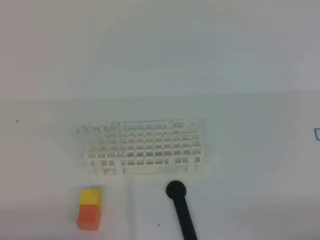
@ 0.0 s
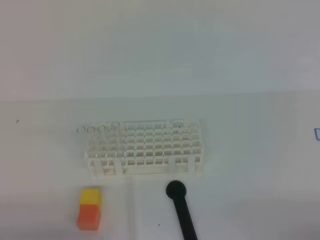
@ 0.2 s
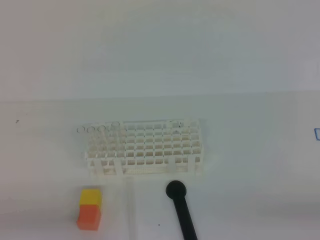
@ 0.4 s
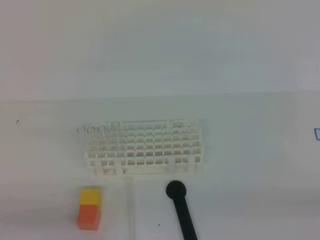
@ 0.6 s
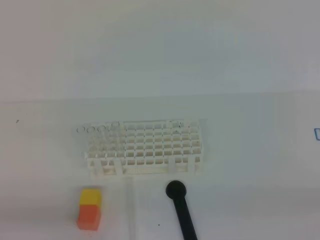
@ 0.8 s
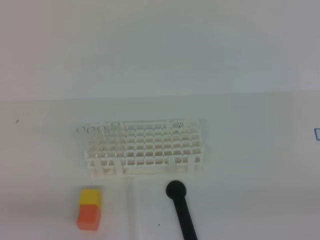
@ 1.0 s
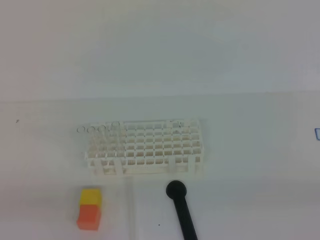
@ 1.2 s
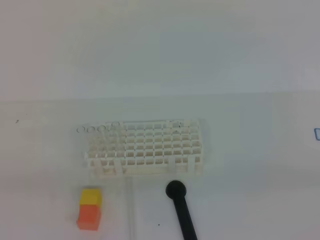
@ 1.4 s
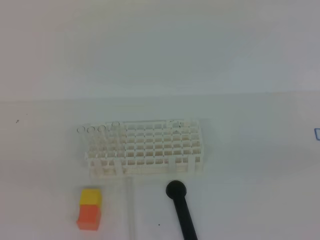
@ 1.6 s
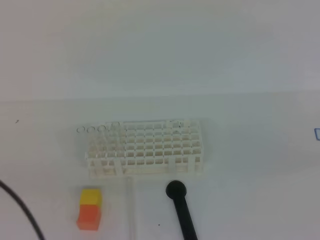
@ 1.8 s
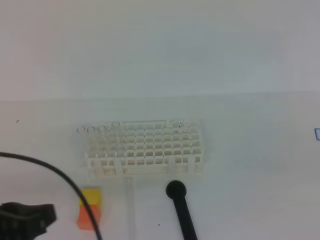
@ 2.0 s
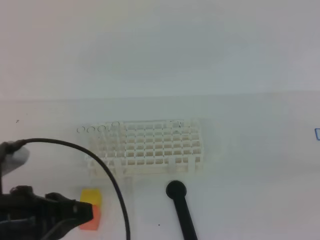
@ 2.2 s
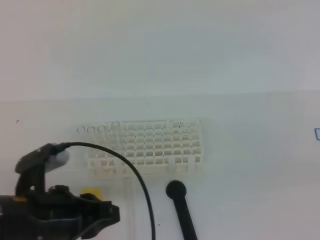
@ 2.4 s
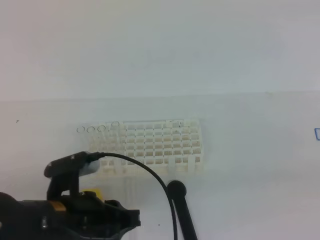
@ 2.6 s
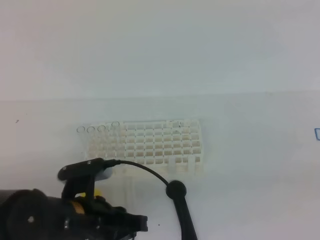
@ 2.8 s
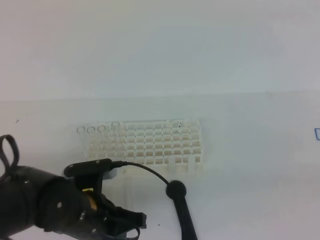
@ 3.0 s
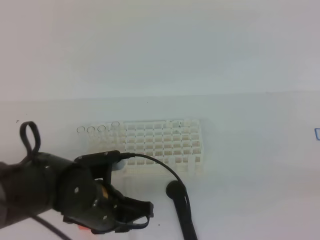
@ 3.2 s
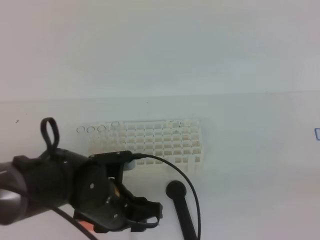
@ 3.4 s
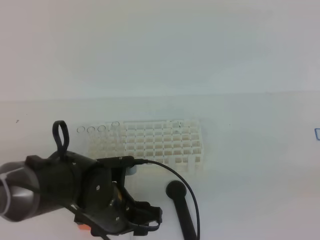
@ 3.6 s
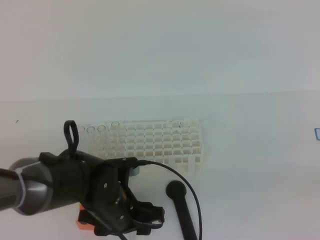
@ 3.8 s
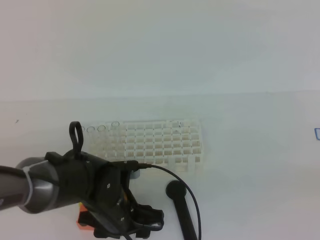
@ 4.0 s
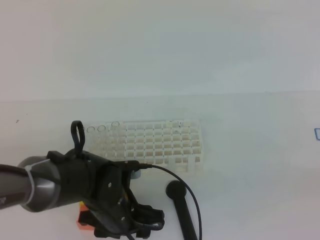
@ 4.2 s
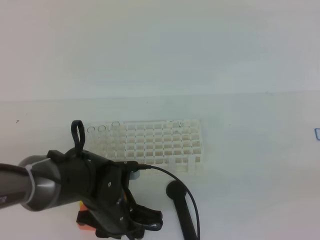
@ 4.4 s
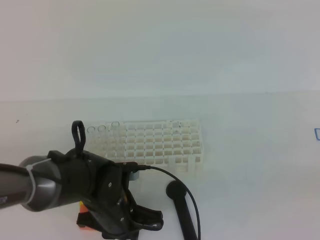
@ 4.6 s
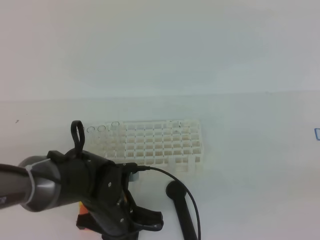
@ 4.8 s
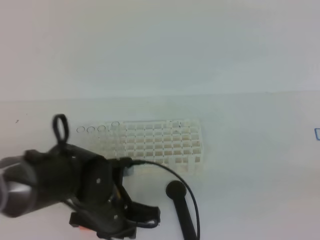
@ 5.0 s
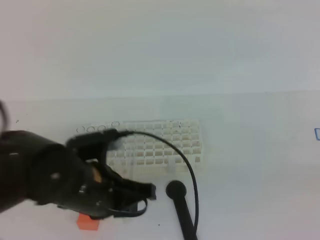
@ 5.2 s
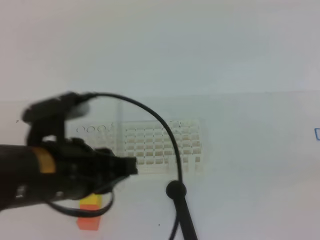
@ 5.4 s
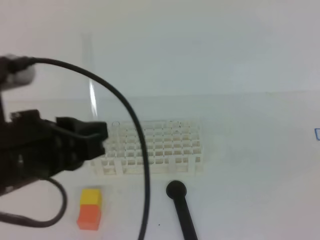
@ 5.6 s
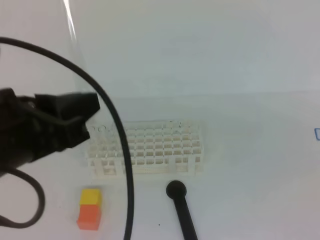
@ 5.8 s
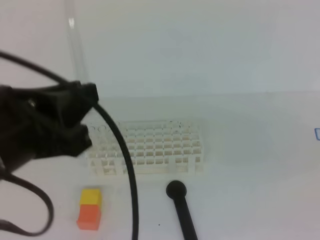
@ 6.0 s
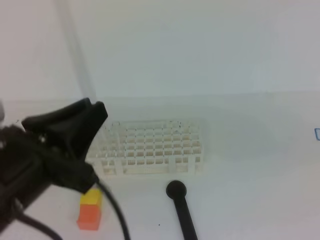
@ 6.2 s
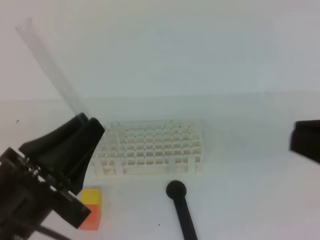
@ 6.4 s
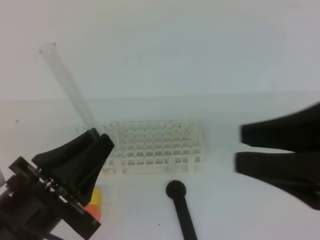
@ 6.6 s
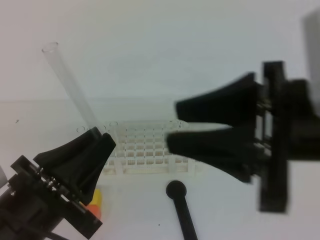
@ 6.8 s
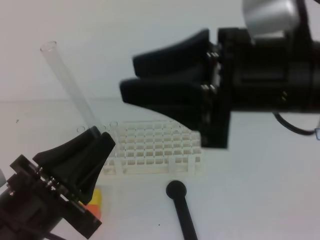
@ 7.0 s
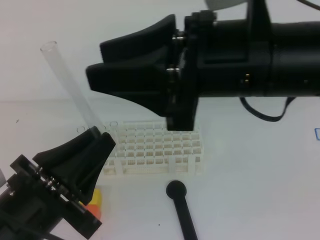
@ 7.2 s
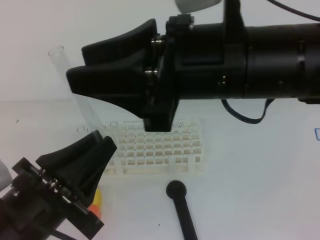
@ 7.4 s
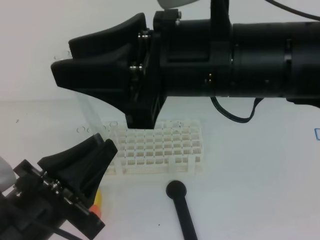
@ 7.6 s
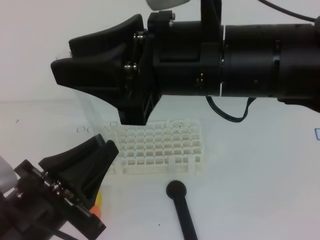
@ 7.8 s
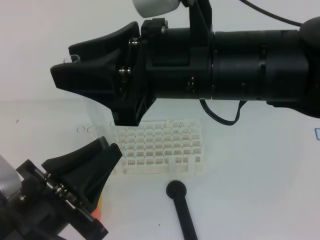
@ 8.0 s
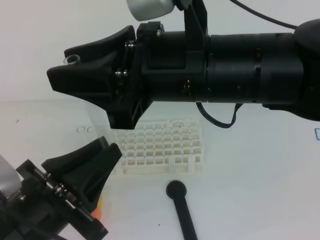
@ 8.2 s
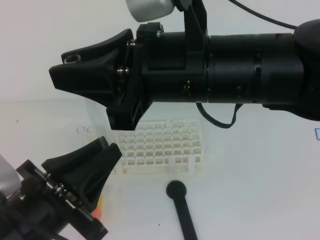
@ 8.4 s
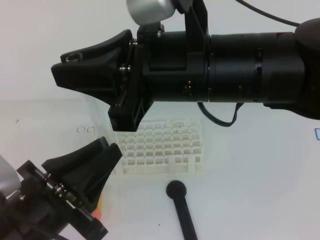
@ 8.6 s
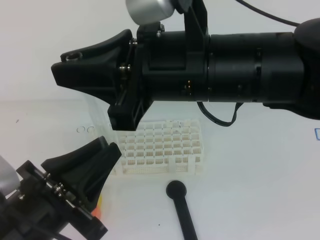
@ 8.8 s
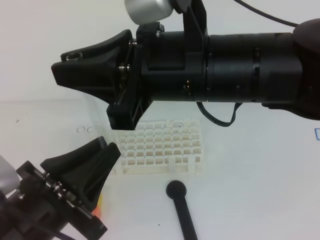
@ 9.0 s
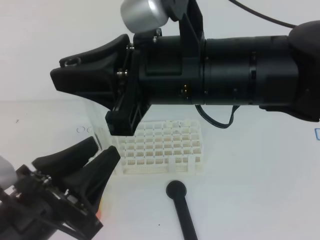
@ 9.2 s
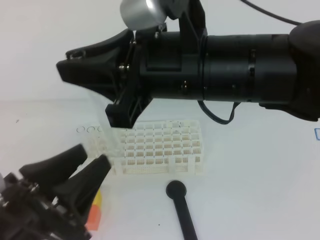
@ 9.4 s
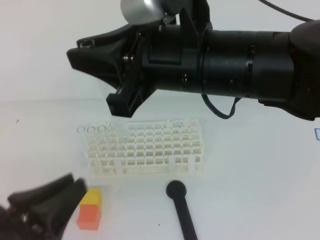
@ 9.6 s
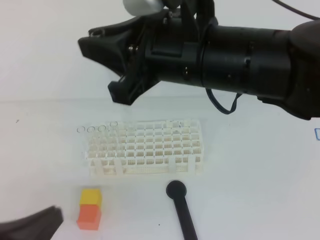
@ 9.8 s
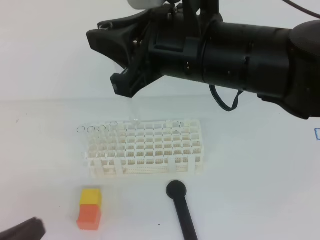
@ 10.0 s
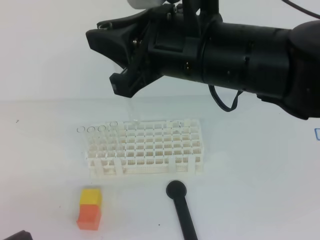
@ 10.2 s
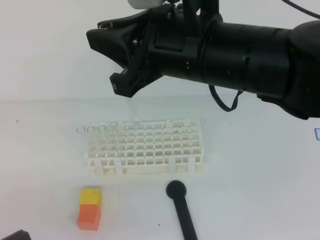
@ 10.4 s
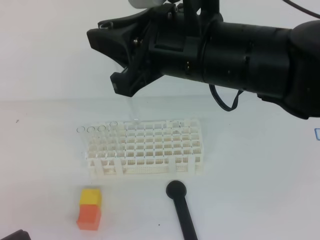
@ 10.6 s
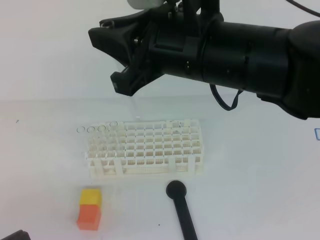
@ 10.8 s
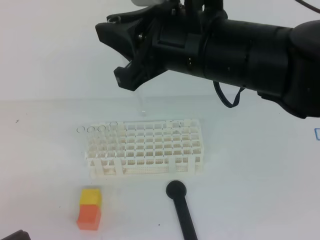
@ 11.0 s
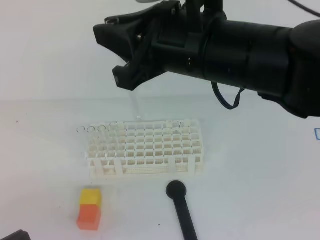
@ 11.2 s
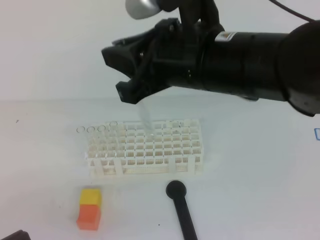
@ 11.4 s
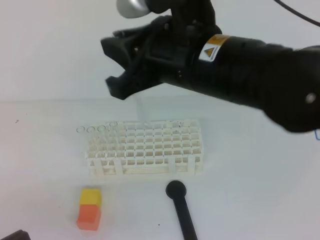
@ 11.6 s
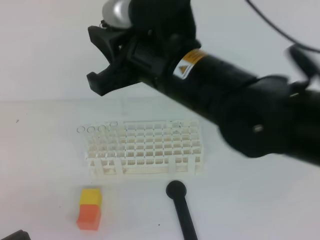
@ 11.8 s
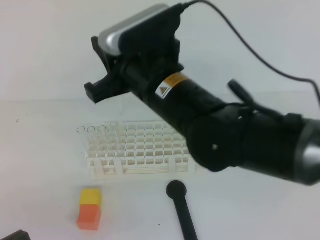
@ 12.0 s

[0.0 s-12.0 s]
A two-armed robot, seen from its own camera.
1.6 to 3.0 s: The left gripper shifts roughly 25 cm to the right, forward and downward.
3.0 to 4.4 s: The left gripper travels downward by about 5 cm, and opens, then closes again.
4.4 to 6.0 s: The left gripper moves upward and backward, roughly 25 cm, and closes up. Meanwhile the right gripper is displaced to the left by roughly 5 cm.
6.0 to 7.6 s: The left gripper heads downward, covering about 10 cm. Meanwhile the right gripper travels to the left and forward by some 25 cm, and opens its fingers.
7.6 to 9.0 s: The right gripper closes.
9.0 to 10.4 s: The left gripper is displaced to the left and backward by approximately 10 cm.
10.4 to 12.0 s: The right gripper travels downward by some 5 cm.

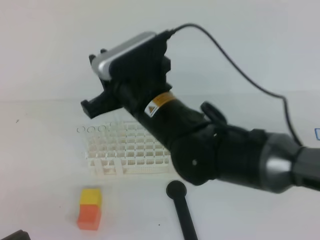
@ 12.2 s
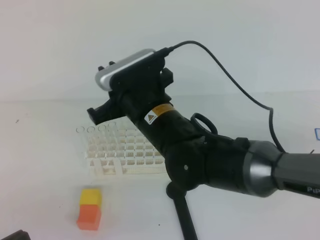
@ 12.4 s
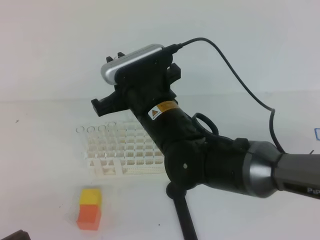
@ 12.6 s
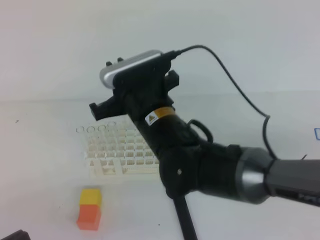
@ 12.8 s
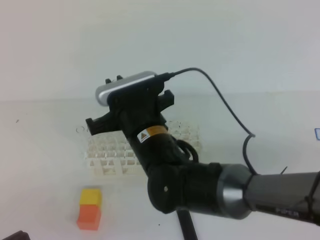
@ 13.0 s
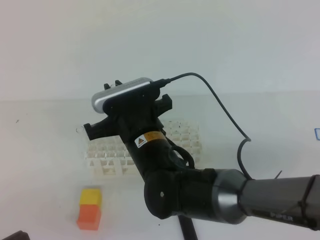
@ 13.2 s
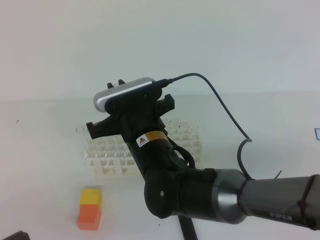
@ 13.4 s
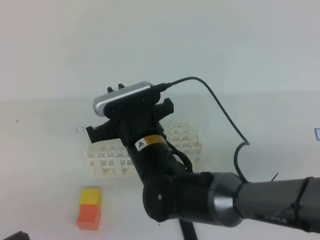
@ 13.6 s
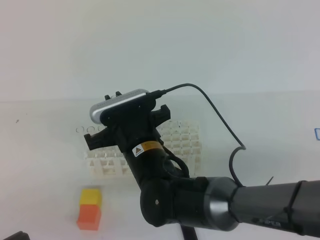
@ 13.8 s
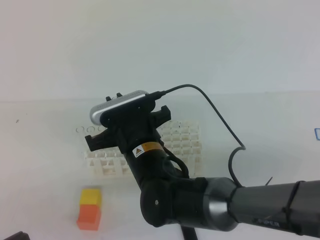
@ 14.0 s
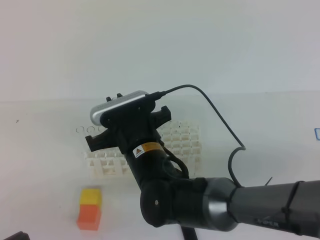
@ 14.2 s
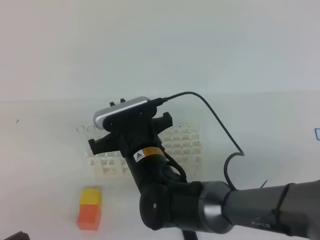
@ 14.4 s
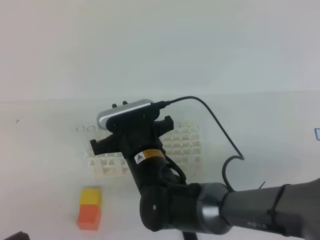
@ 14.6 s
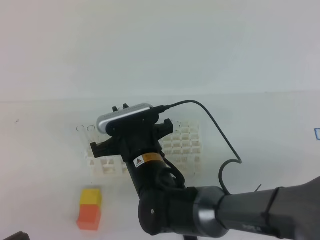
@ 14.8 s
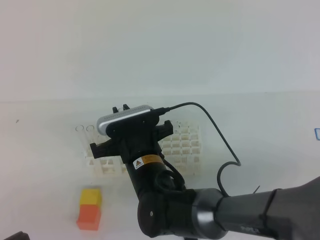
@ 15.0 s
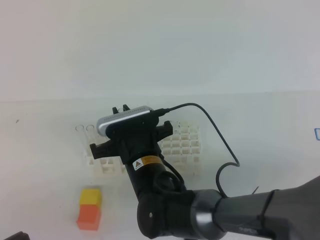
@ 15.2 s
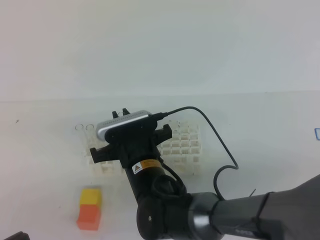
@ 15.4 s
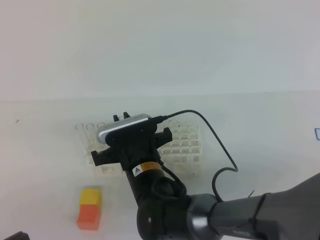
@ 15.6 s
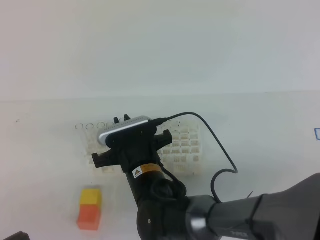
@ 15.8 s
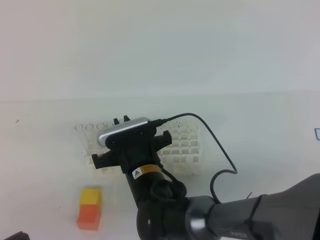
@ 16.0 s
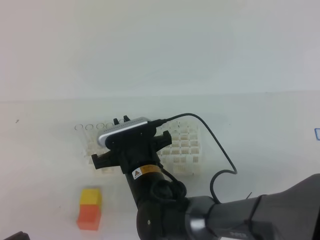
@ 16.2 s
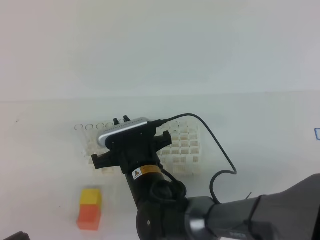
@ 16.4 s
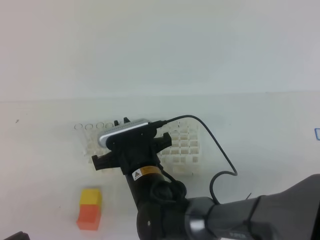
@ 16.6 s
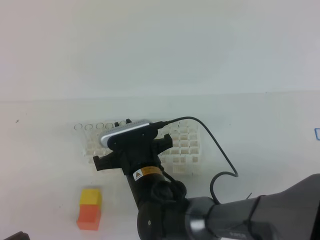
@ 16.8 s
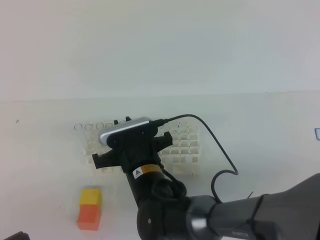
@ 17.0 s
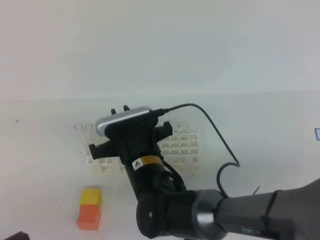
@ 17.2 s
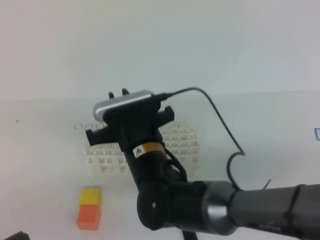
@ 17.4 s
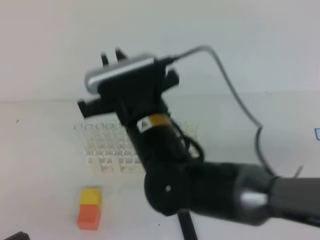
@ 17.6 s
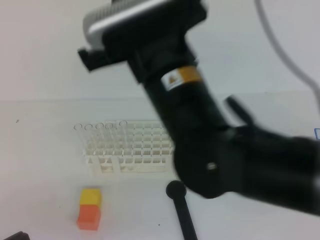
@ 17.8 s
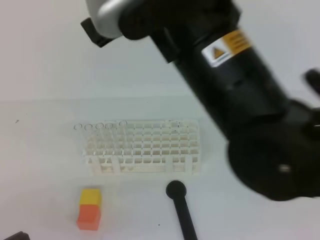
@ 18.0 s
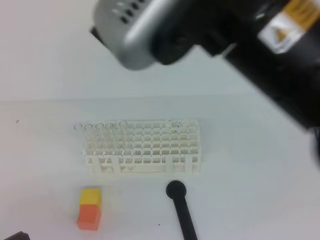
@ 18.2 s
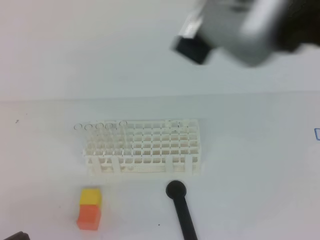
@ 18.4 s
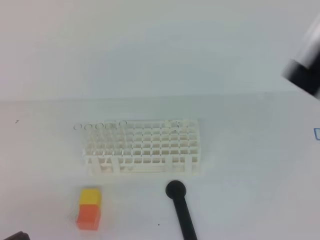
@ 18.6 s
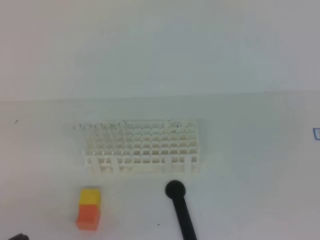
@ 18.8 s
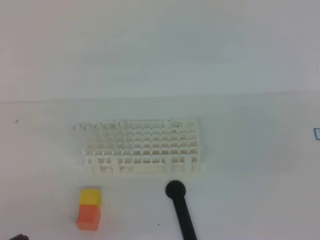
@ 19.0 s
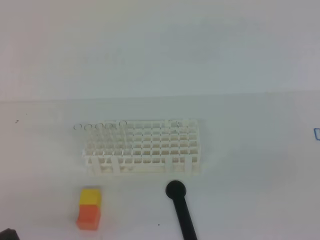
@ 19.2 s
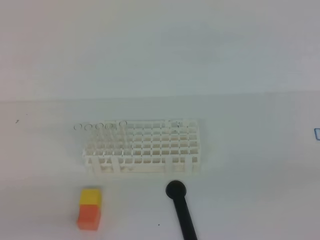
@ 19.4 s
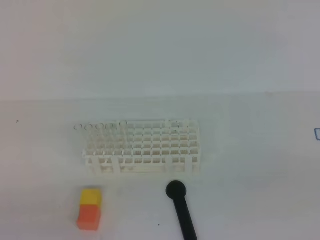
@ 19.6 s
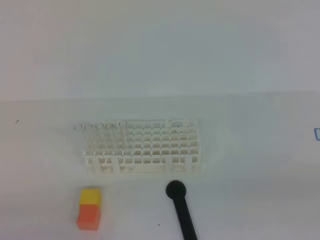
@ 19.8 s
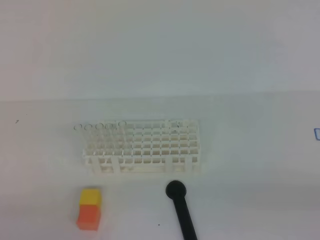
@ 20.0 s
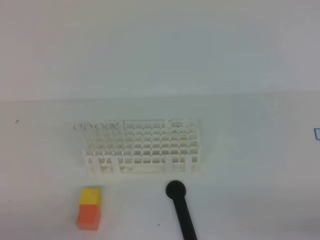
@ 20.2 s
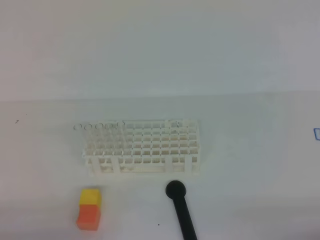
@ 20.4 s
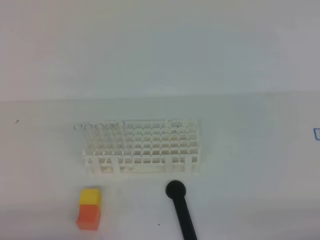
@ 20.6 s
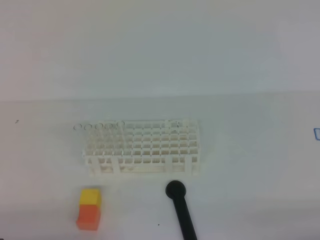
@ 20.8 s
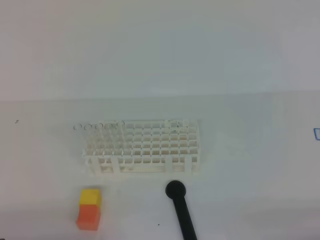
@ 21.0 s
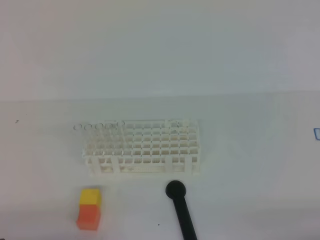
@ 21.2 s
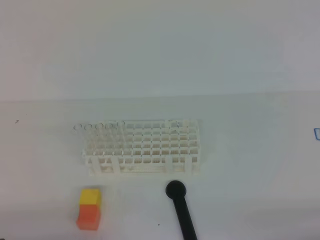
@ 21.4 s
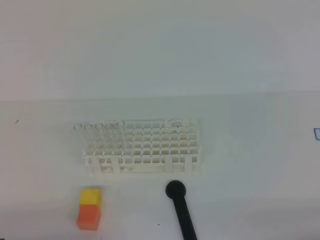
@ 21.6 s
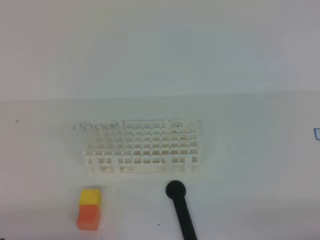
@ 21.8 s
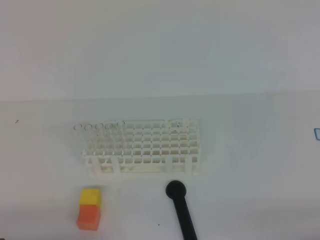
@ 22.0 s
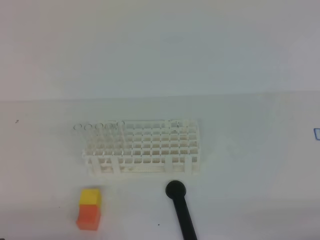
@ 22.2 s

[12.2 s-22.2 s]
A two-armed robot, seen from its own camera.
12.2 to 13.6 s: The right gripper shifts about 10 cm downward.
13.6 to 15.0 s: There are only small adjustments of the grippers.
15.0 to 16.4 s: There are only small adjustments of the grippers.
16.4 to 18.0 s: The right gripper travels upward by approximately 30 cm.
18.0 to 19.4 s: The right gripper goes some 35 cm to the right, backward and downward.
20.8 to 22.2 s: The two grippers keep their place.
